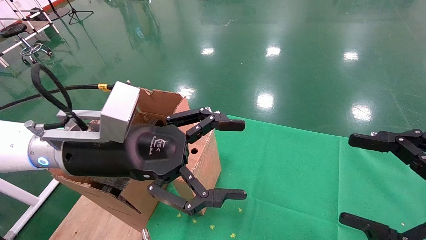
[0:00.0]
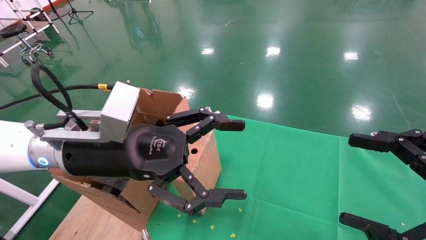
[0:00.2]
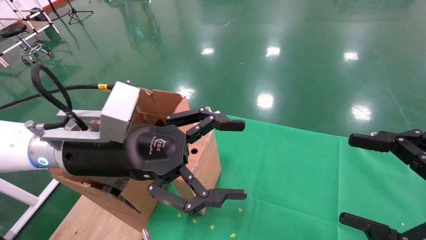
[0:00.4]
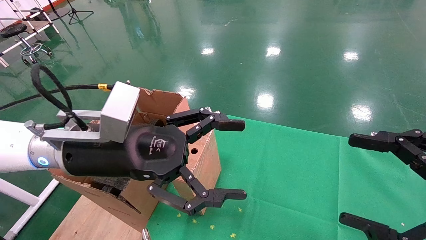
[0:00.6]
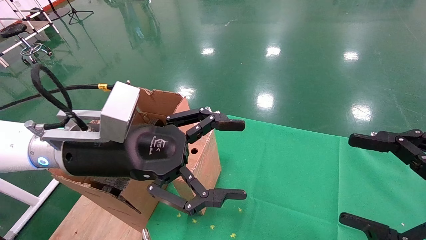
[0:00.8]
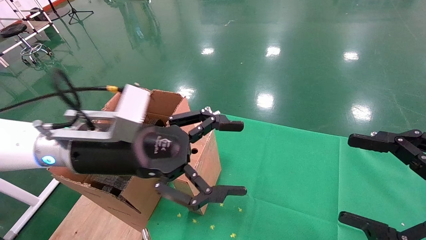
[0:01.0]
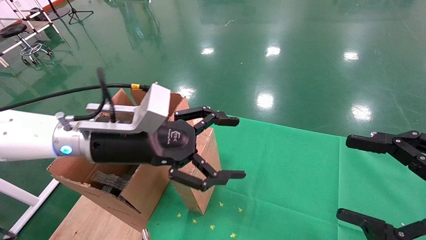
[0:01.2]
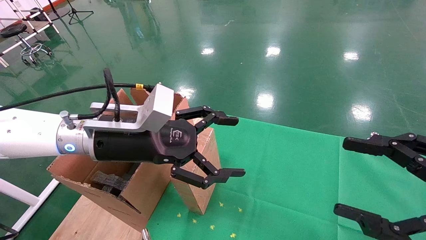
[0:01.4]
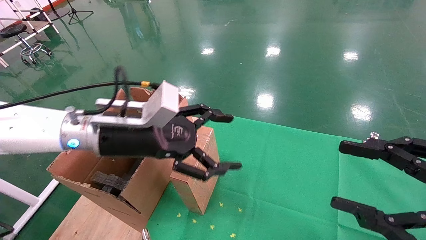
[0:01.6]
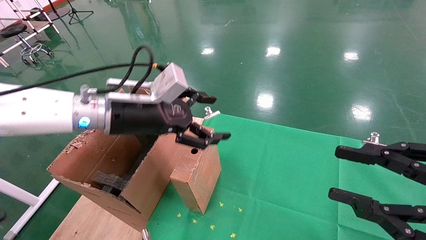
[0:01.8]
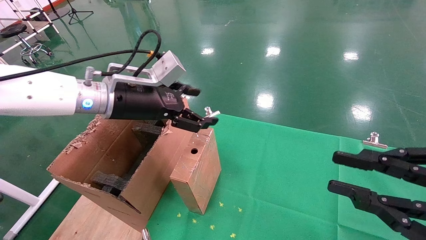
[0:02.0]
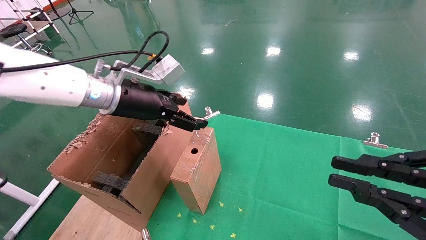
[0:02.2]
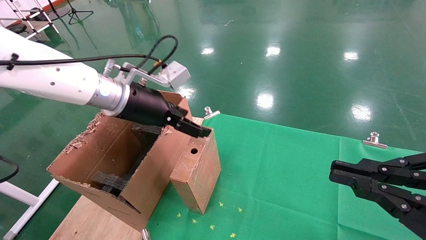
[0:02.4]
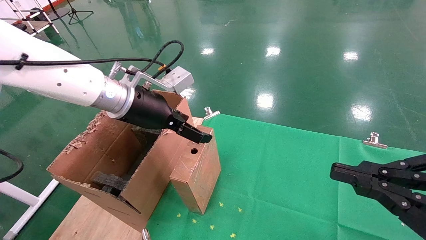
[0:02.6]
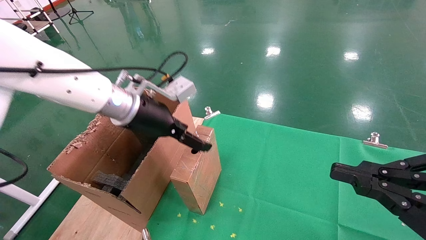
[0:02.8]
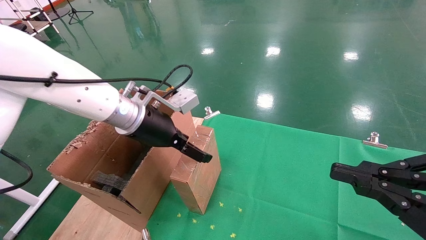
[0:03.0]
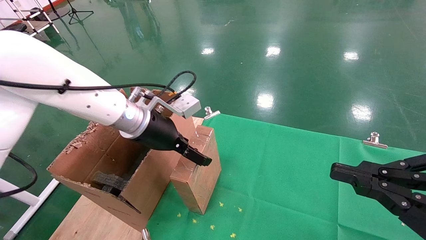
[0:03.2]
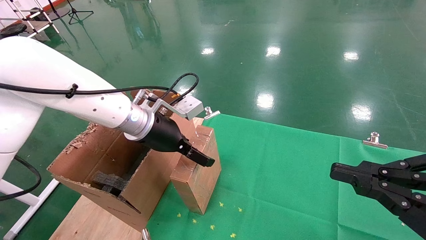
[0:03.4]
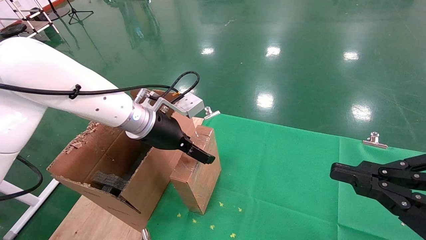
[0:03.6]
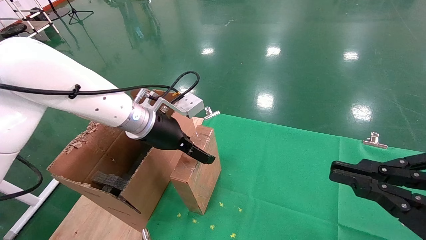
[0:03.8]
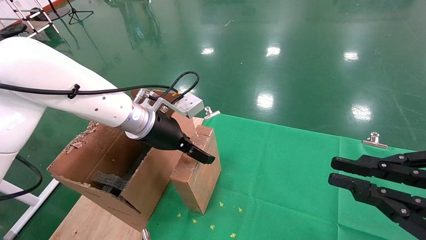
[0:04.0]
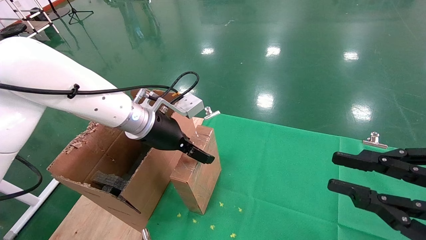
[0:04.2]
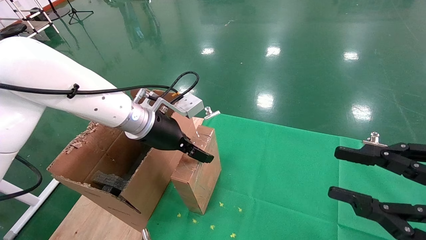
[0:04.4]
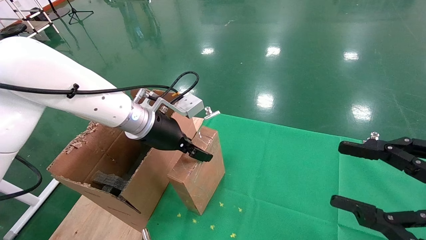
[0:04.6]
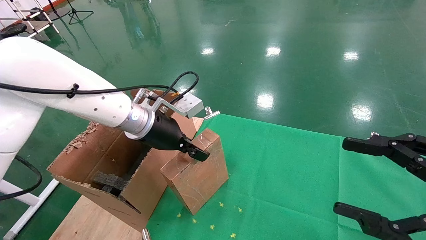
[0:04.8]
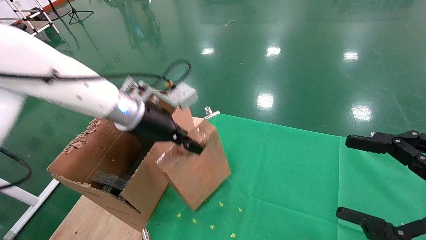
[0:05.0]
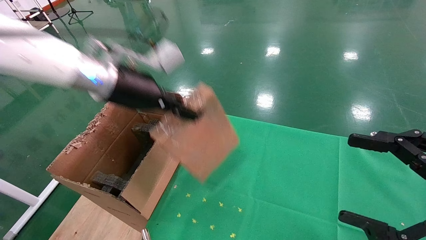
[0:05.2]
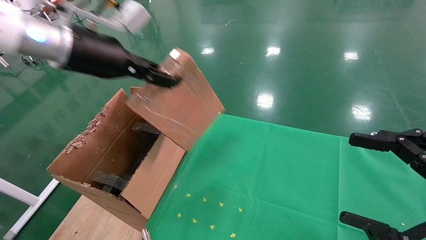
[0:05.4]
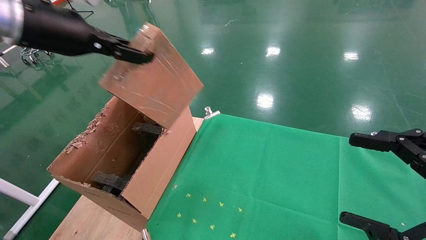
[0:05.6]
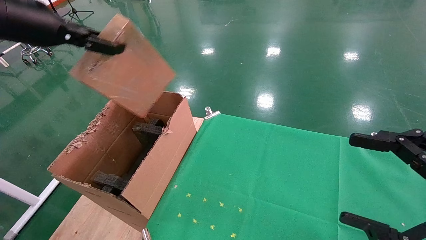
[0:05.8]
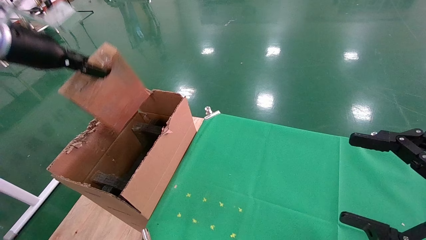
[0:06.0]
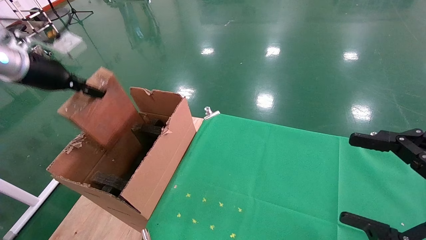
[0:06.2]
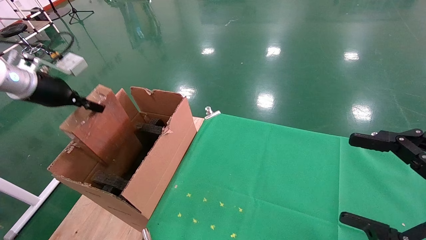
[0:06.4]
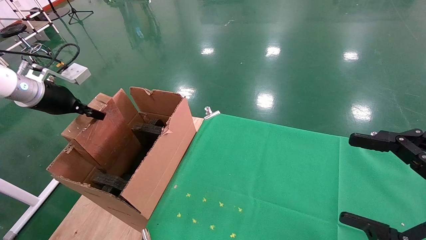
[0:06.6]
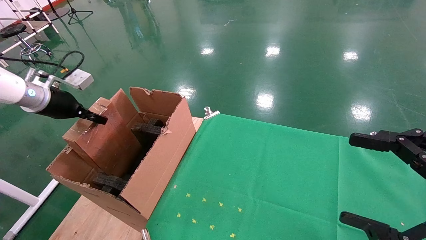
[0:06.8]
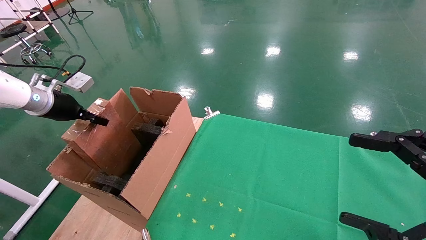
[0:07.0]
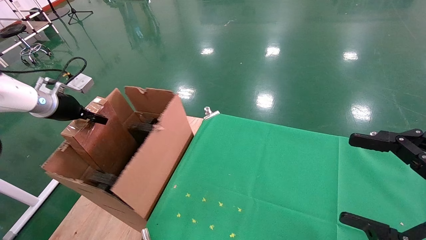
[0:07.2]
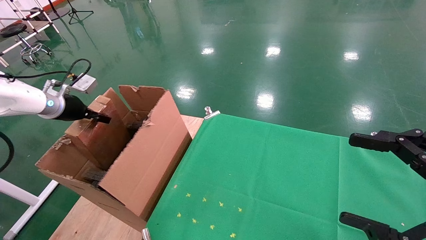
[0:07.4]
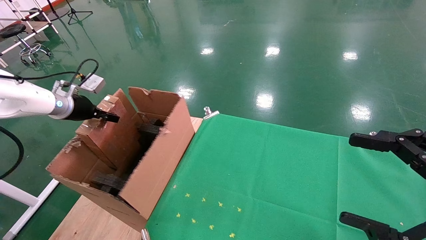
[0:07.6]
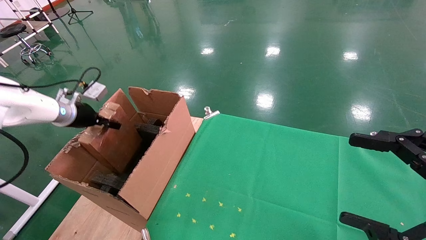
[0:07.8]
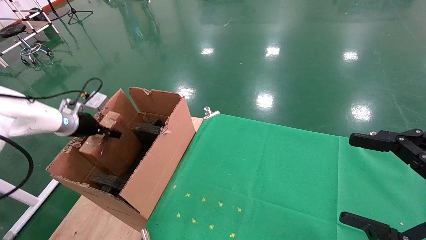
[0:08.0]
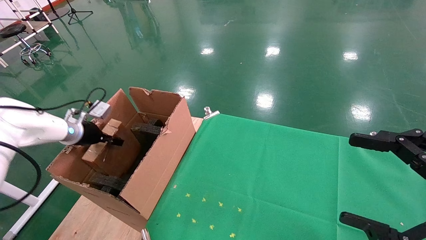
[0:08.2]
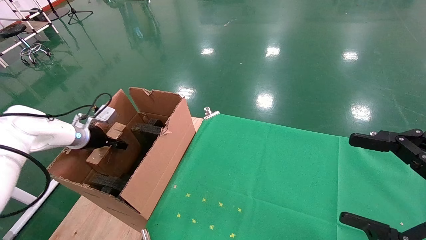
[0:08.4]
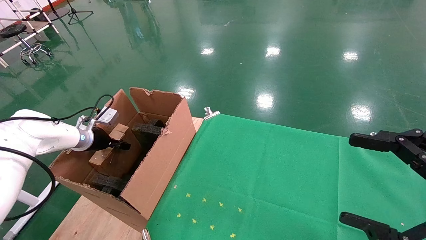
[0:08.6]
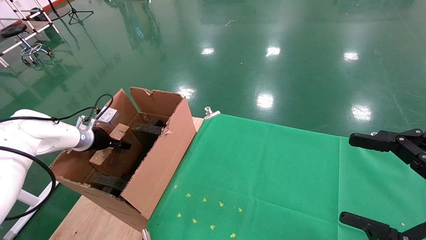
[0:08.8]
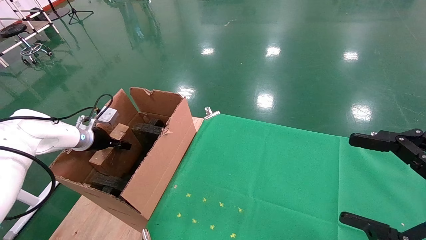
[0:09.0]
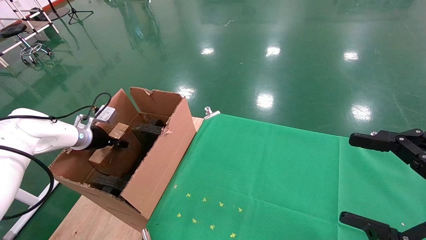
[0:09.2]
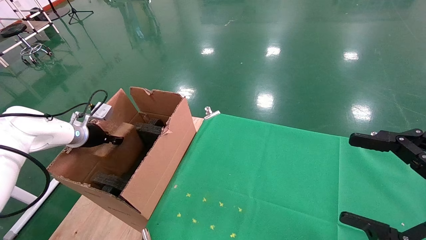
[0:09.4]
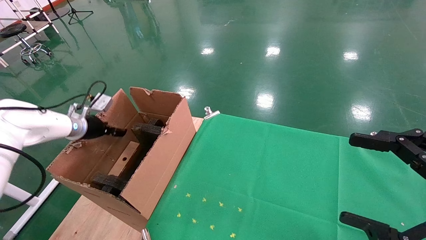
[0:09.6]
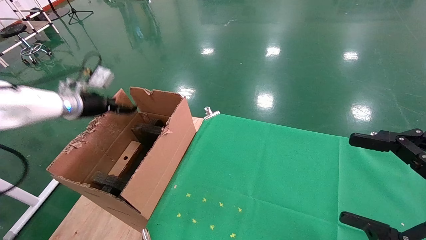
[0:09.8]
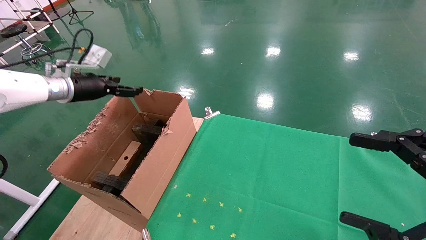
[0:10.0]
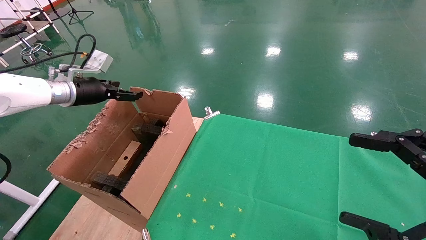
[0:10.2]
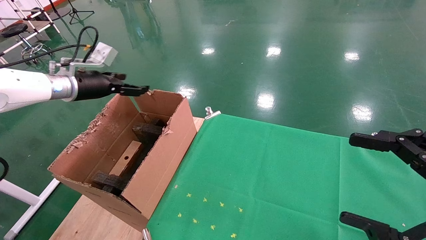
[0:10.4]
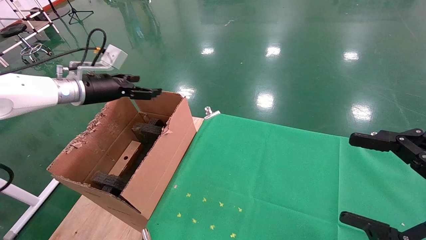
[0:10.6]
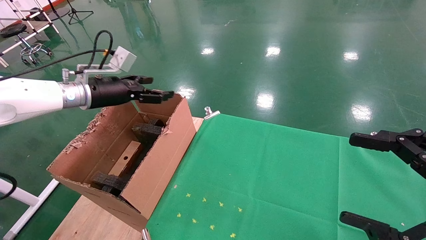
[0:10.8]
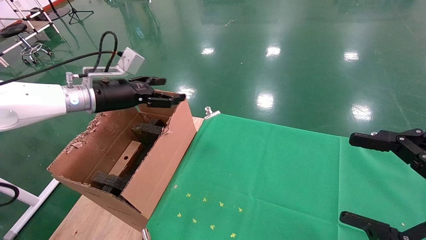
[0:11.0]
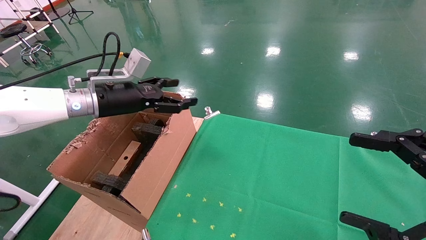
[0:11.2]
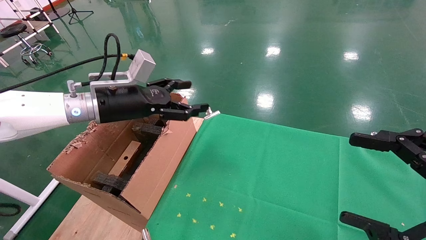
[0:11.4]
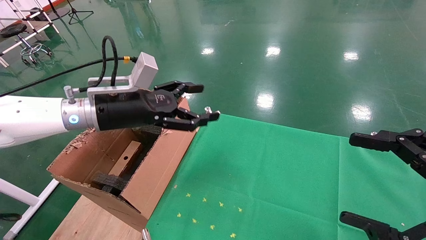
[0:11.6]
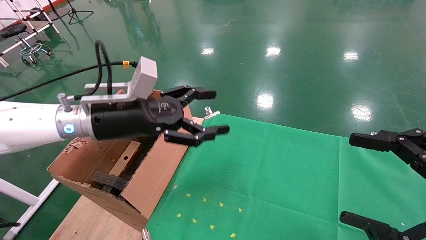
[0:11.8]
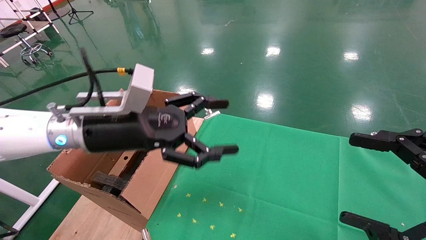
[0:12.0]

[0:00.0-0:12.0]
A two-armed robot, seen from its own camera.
Task of the whole recording: using a robotic arm to pick up a cardboard box and palace it the carton.
Step, 0:01.2 to 0:04.8: Pick up the mouse and the power cord paper box.
Step, 0:05.0 to 0:10.0: Place the mouse and the power cord paper box into the container.
0:00.0 to 0:01.6: The left gripper is displaced forward by about 5 cm.
0:01.6 to 0:03.0: The left gripper travels forward by approximately 5 cm. The right gripper closes up.
0:03.0 to 0:04.4: The grippers make only small movements.
0:04.4 to 0:06.0: The left gripper moves to the left and upward, about 25 cm, and closes up; the right gripper opens.
0:06.0 to 0:07.6: The left gripper goes approximately 20 cm downward and forward.
0:07.6 to 0:09.0: The left gripper heads downward, covering approximately 10 cm.
0:09.0 to 0:10.4: The left gripper is displaced upward by about 15 cm, and opens its fingers.
0:10.4 to 0:12.0: The left gripper shifts some 25 cm to the right and backward.

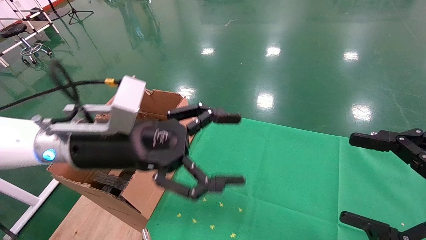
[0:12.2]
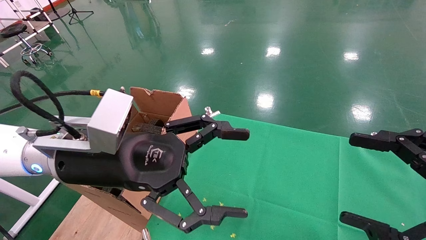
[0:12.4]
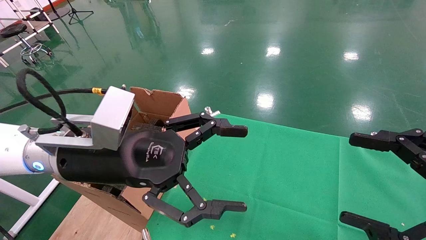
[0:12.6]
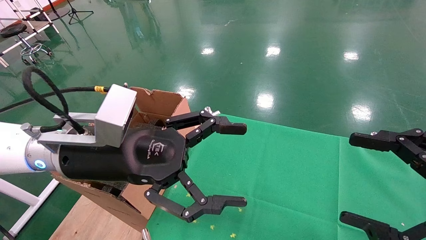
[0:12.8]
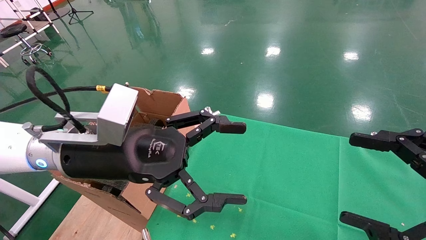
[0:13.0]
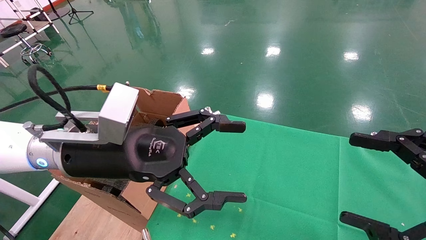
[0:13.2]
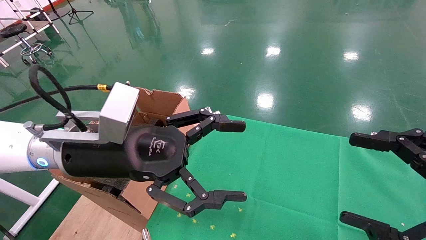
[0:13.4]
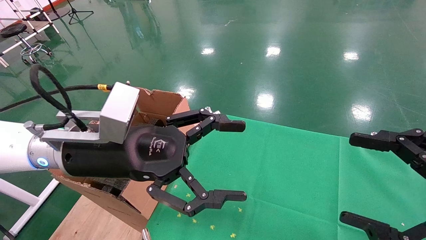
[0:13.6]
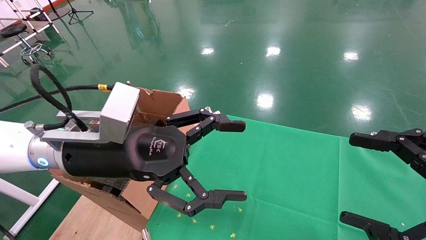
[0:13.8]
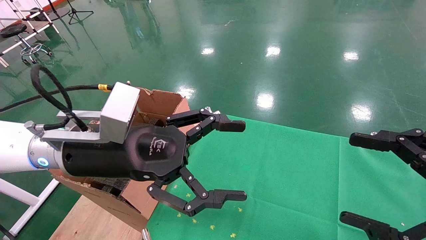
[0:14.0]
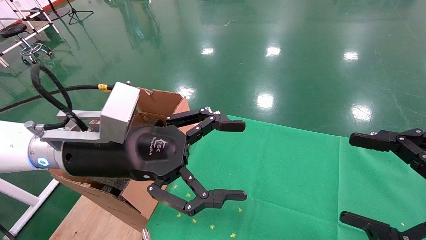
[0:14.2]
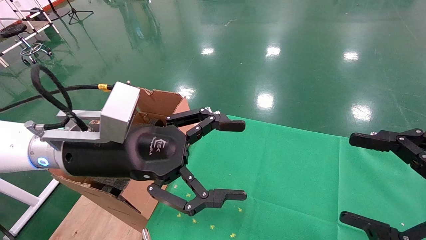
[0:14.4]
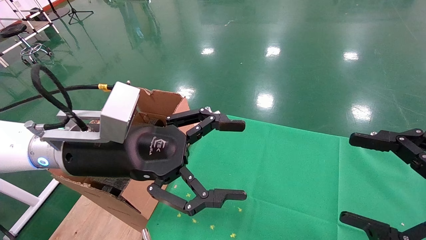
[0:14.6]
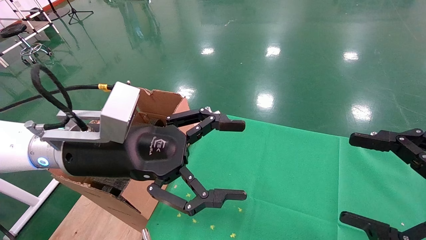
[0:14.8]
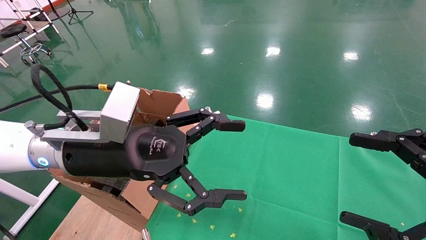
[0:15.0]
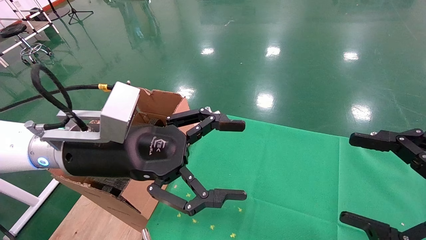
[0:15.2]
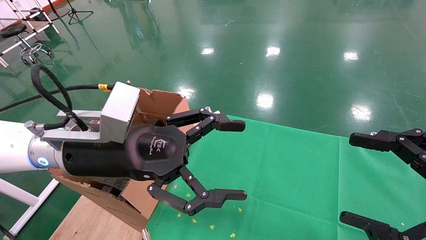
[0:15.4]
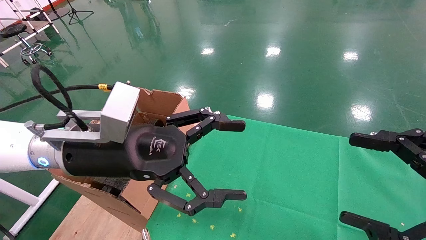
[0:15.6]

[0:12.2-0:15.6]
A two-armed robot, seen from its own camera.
Task of the whole recording: using a robotic arm to pick up a cardboard box and palace it the carton.
0:12.2 to 0:13.8: The grippers move only a little.
0:13.8 to 0:15.6: Both grippers stay put.

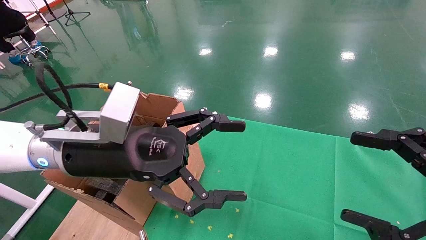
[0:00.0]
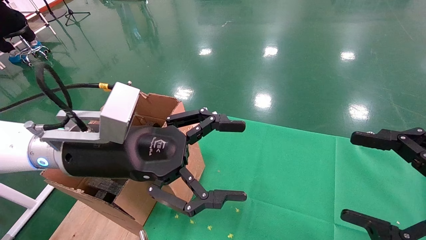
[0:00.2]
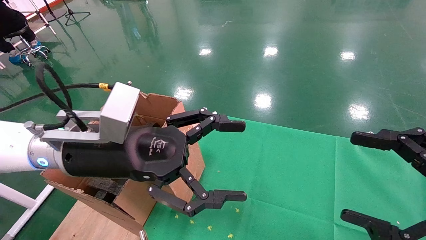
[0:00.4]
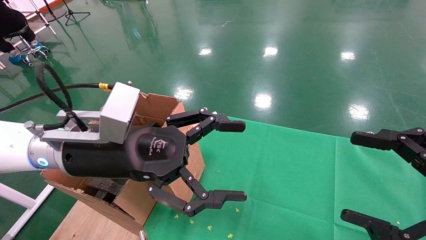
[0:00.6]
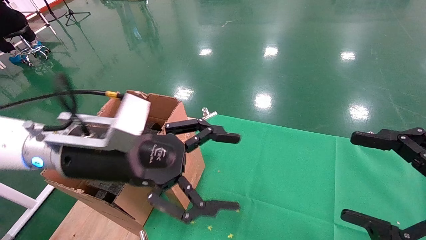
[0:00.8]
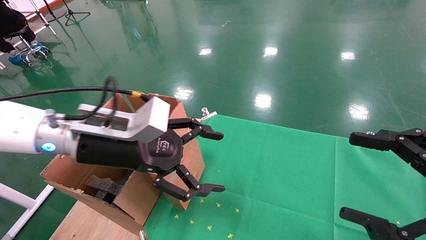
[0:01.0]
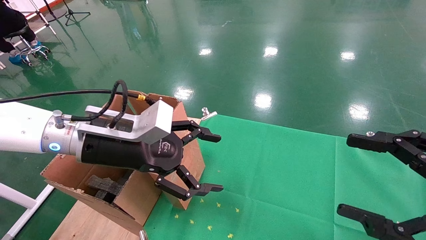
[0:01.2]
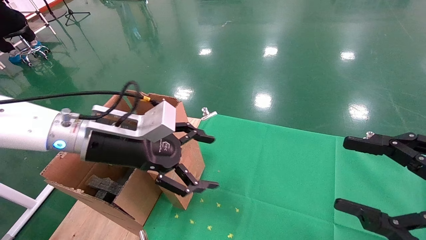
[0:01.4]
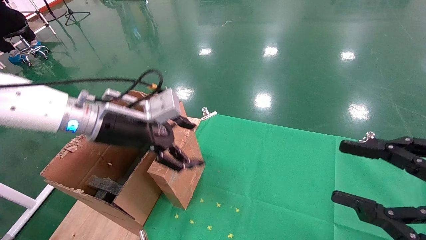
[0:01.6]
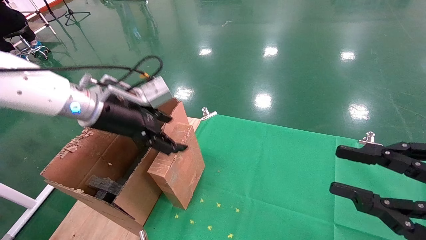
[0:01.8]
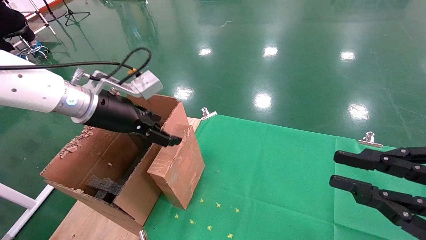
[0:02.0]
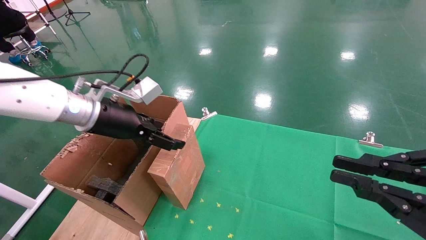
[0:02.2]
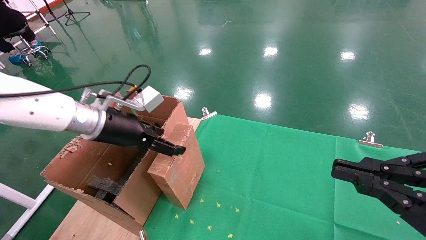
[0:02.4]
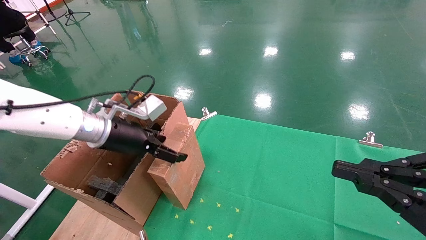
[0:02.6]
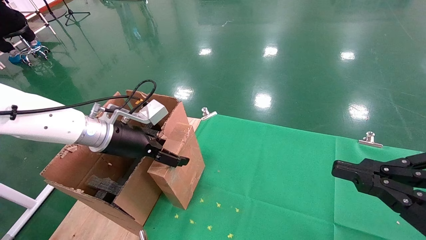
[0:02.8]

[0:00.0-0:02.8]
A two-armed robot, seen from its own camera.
Task of the whole recording: using a robotic arm to pick up a cardboard box and palace it the carton.
0:00.0 to 0:01.4: The left gripper travels forward by approximately 5 cm.
0:01.4 to 0:02.8: The right gripper closes up. Meanwhile the left gripper moves forward, approximately 5 cm.
